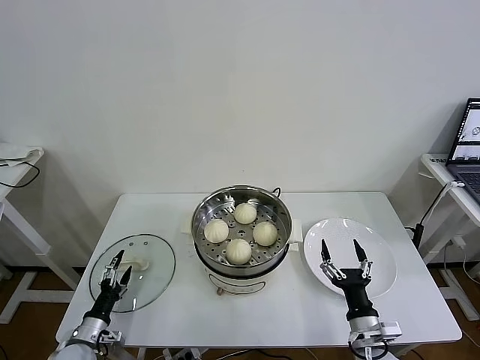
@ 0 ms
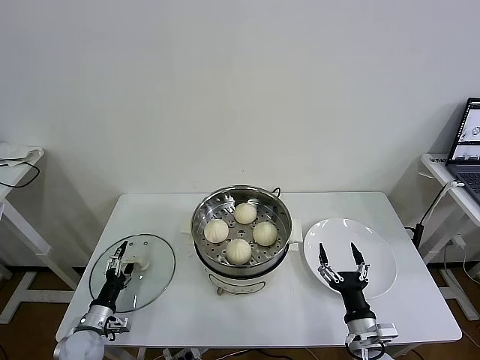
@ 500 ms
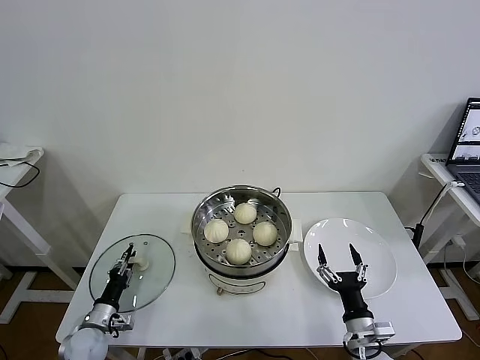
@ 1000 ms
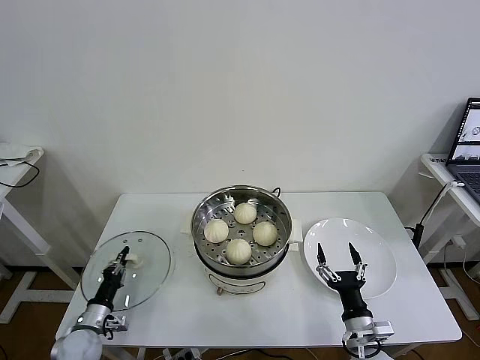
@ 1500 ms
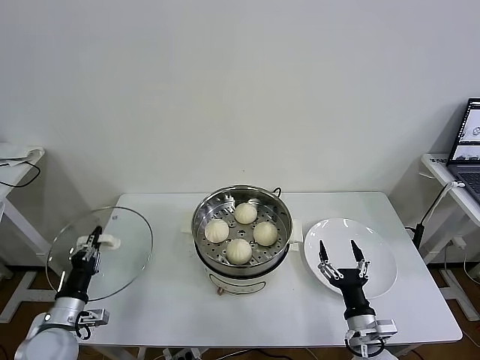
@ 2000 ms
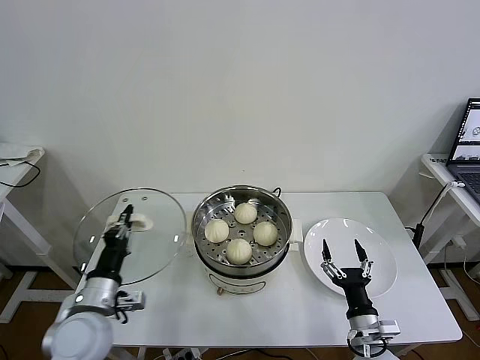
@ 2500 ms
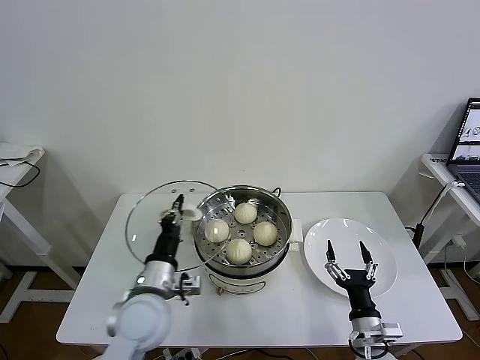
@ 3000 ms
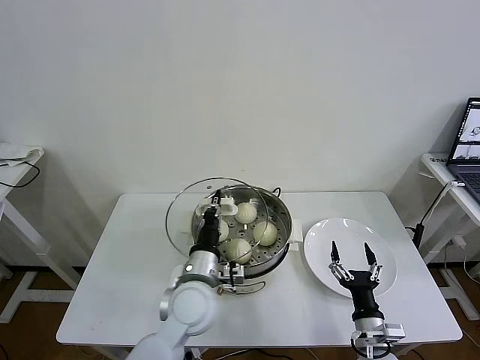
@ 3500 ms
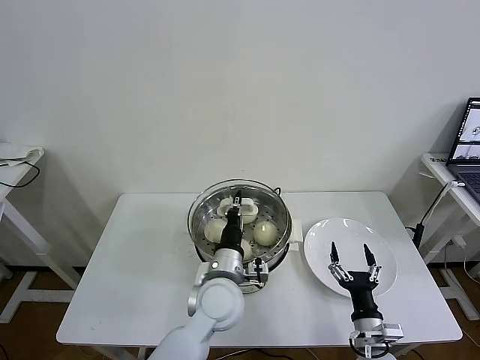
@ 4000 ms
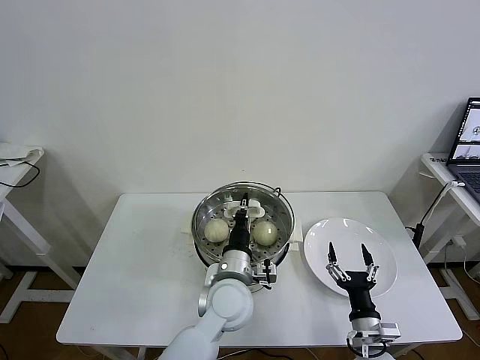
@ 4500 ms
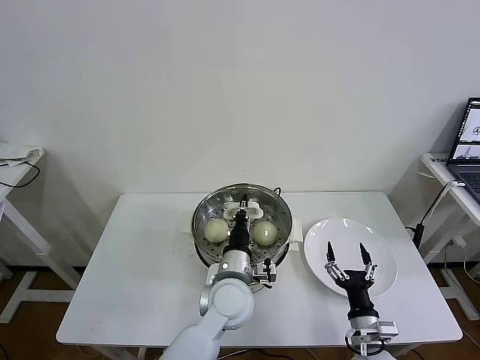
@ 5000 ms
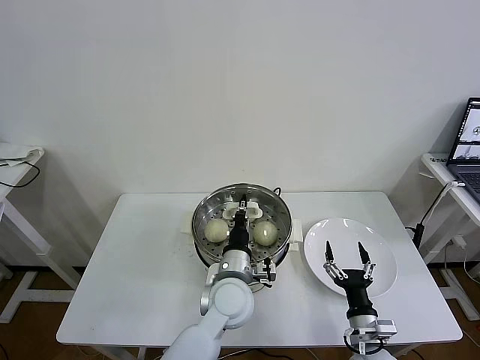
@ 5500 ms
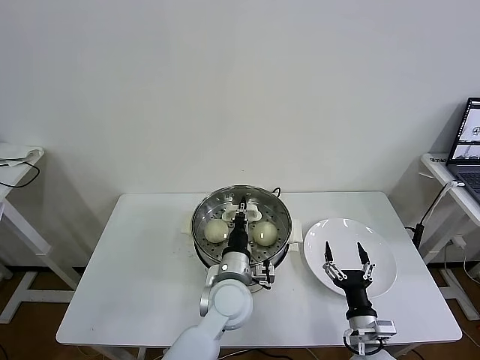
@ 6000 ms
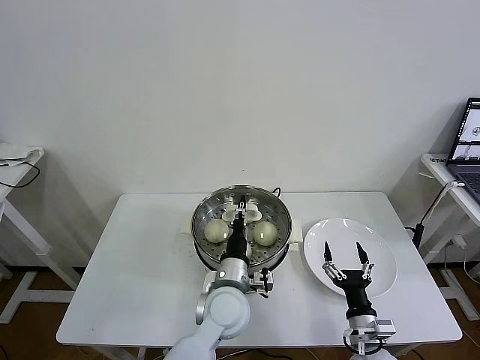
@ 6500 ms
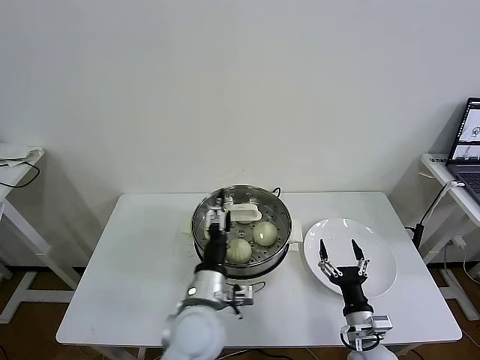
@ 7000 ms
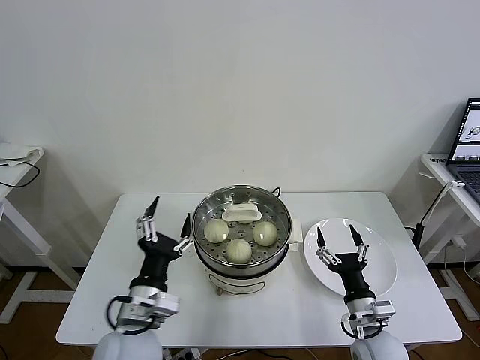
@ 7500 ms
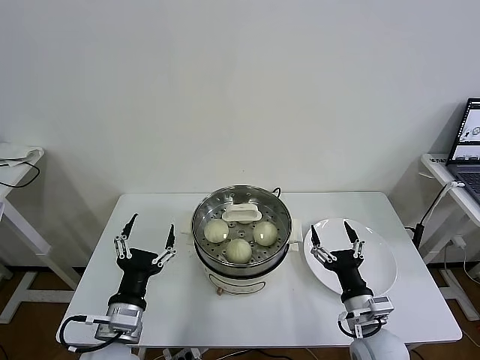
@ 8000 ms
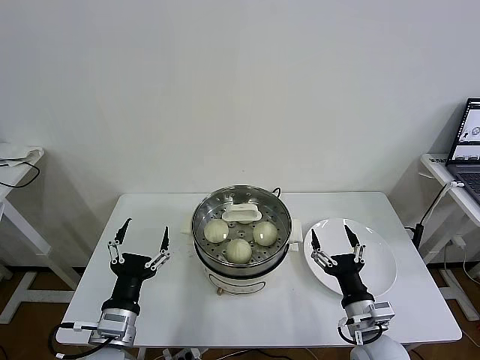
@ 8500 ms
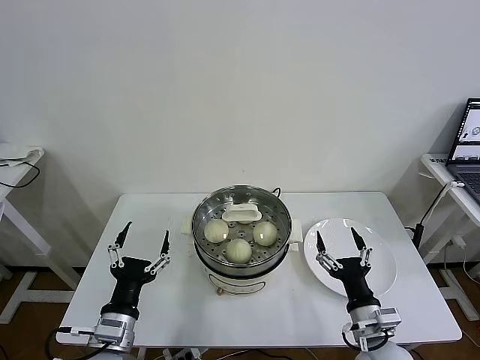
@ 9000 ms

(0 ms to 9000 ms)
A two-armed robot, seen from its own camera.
Task of the whole recording: take steamed baozi put them in steamer then cover it.
Step, 1500 ms - 6500 ms: Place the pot lid on the steamer with left gripper.
0 ms - 2000 ms: The left gripper shifts some 10 cm upward, and closes up.
2000 ms - 4500 ms: The left gripper is displaced to the right by some 35 cm.
4500 ms - 7000 ms: The left gripper shifts approximately 5 cm backward, and opens its fingers.
7000 ms - 9000 ms: The left gripper travels to the left and backward by some 20 cm. The right gripper goes approximately 10 cm upward.

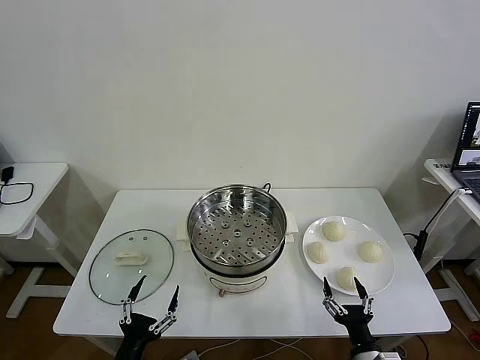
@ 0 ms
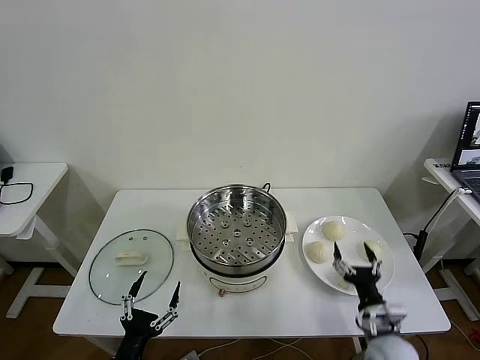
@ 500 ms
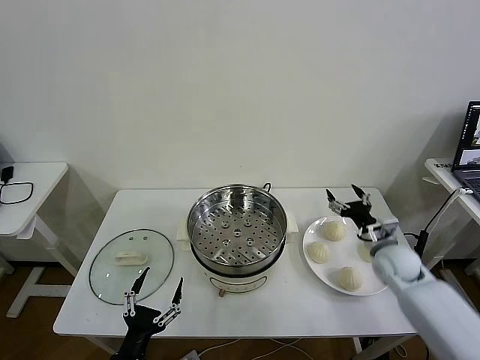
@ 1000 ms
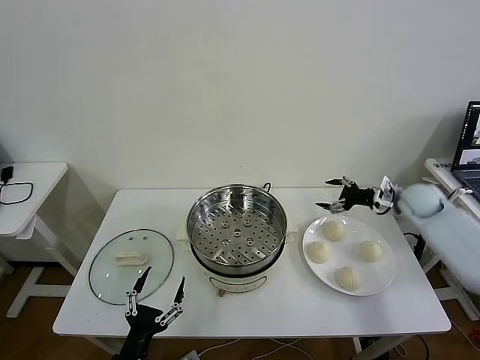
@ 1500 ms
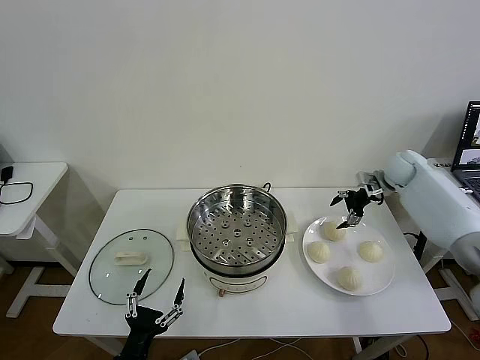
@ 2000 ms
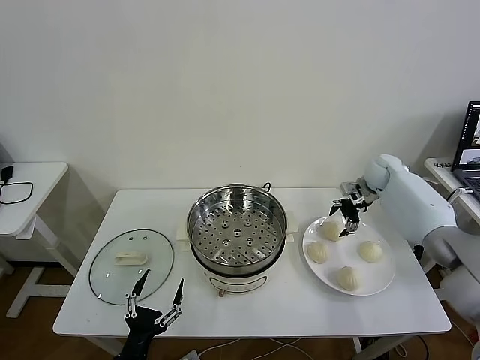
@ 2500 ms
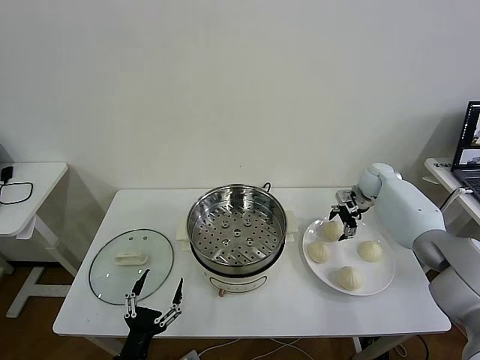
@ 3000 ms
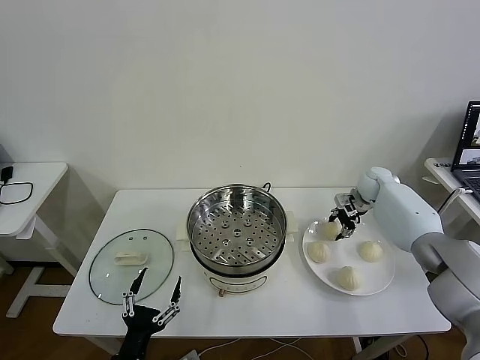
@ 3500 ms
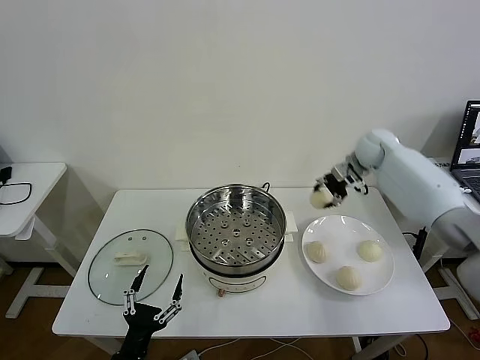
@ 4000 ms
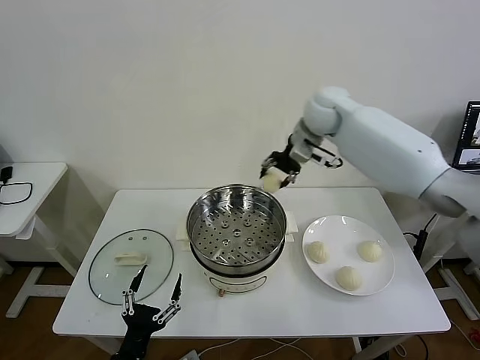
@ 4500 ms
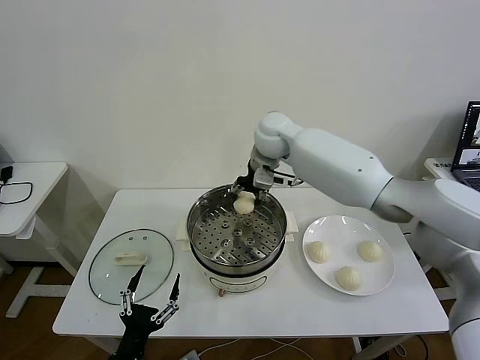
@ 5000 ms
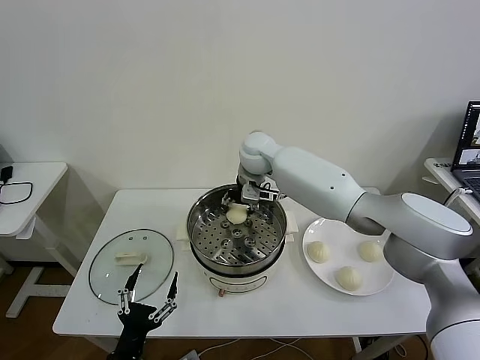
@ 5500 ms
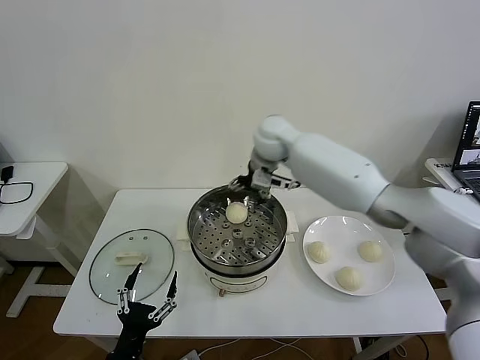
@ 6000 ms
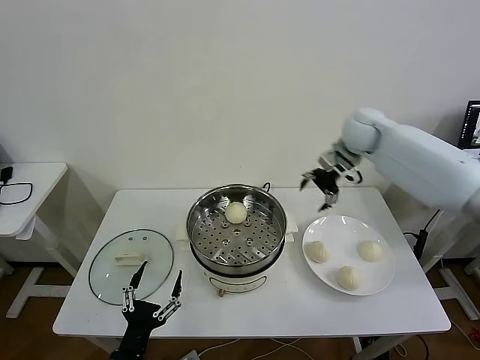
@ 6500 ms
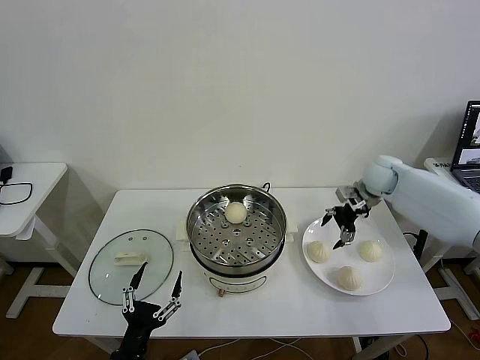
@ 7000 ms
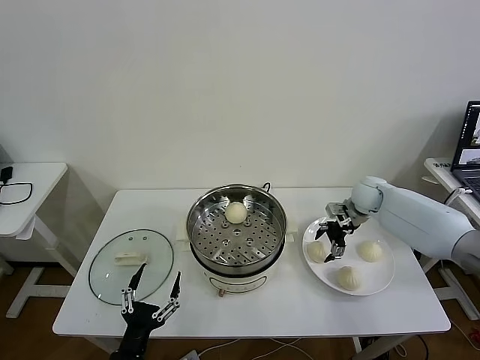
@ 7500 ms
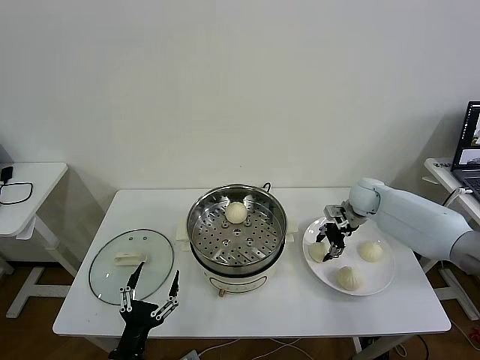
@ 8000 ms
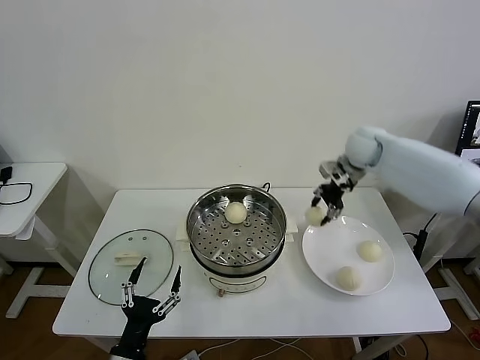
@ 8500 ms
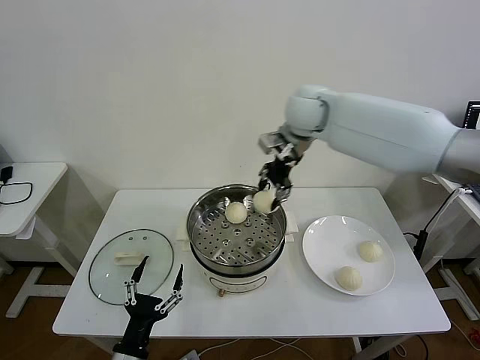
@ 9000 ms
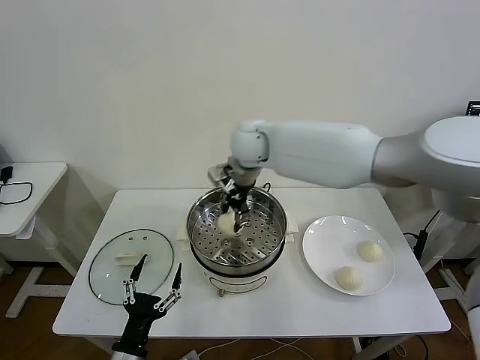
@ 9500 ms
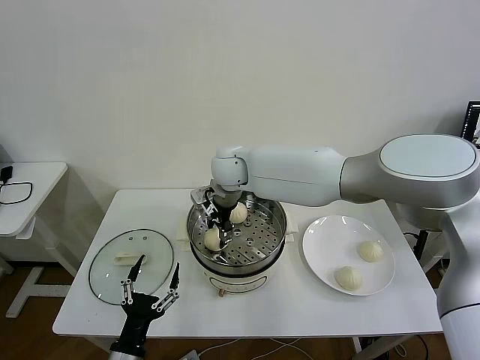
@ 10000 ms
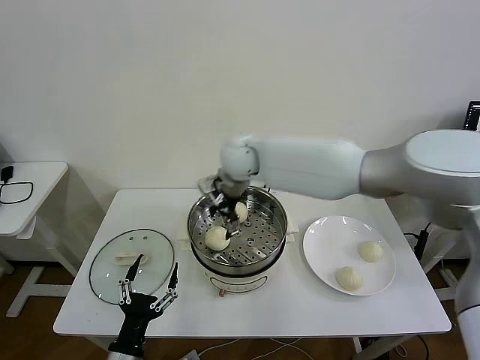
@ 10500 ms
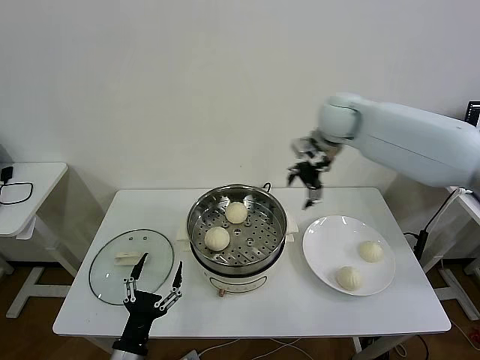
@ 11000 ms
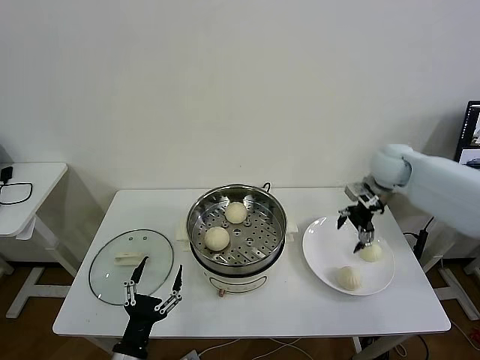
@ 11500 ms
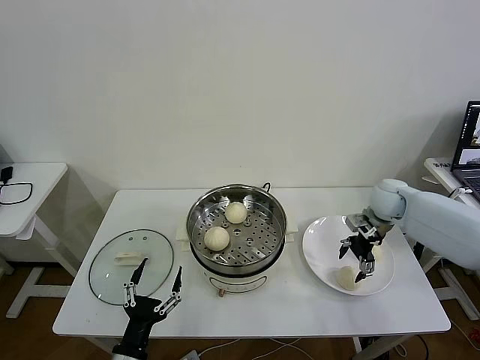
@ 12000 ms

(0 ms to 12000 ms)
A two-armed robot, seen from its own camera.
Task of the whole recording: take steamed baozi put them in steamer then cover it.
Step, 0 ms - 3500 ms: Grasp the baozi in the plate with right gripper.
Step, 4000 ms - 6000 ms: Place the baozi on the steamer with right gripper.
Step, 6500 ms - 8000 ms: Grasp the baozi in the plate with right gripper.
Step, 8500 ms - 10500 ms: Place the baozi on the steamer with right gripper.
2000 ms - 4000 ms: The right gripper heads to the left and upward, covering some 15 cm, and closes its fingers.
4000 ms - 6000 ms: The right gripper shifts roughly 20 cm to the left, and opens.
6000 ms - 8000 ms: The right gripper moves to the right and downward, some 30 cm, and closes up.
8000 ms - 10000 ms: The right gripper travels to the left by approximately 35 cm.
10000 ms - 12000 ms: The right gripper heads to the right, covering about 40 cm, and opens.

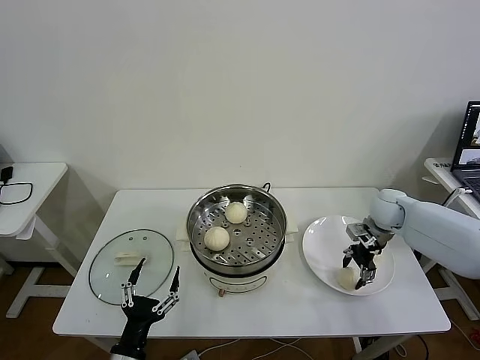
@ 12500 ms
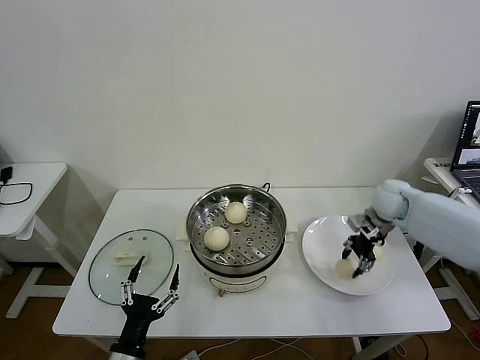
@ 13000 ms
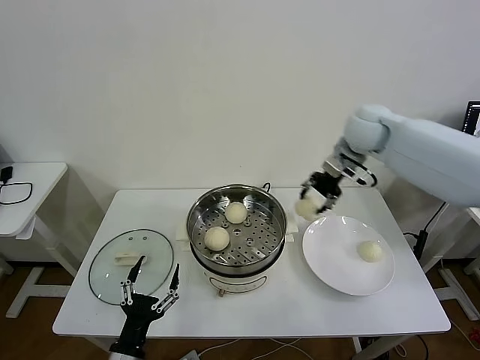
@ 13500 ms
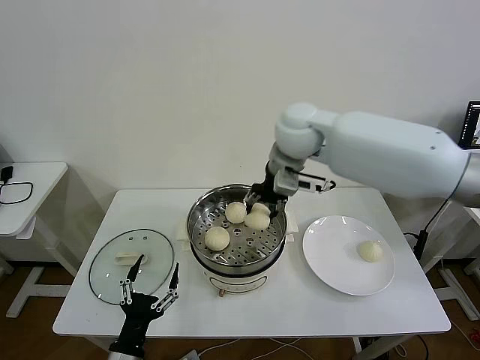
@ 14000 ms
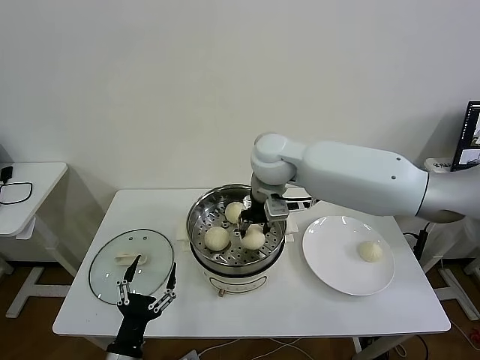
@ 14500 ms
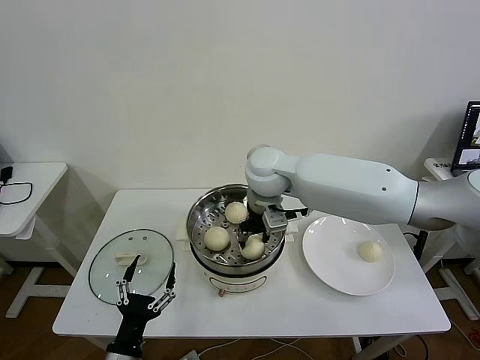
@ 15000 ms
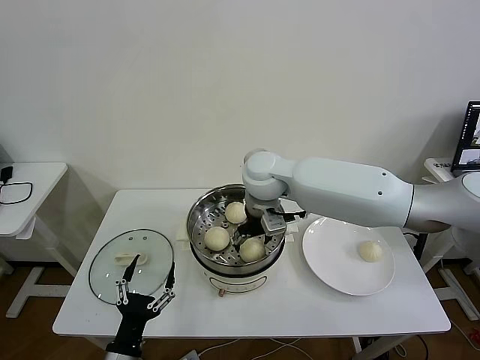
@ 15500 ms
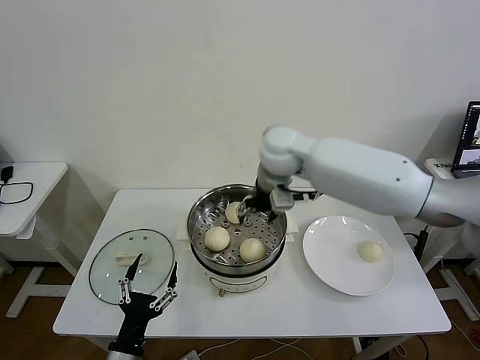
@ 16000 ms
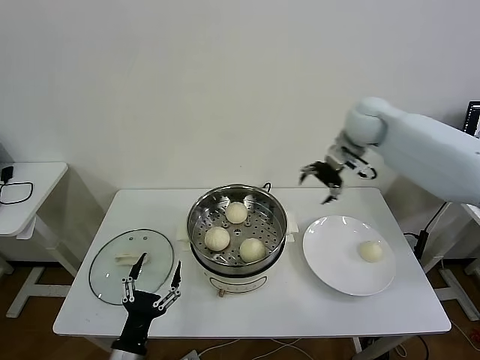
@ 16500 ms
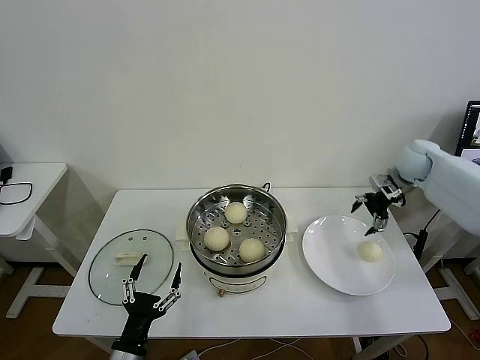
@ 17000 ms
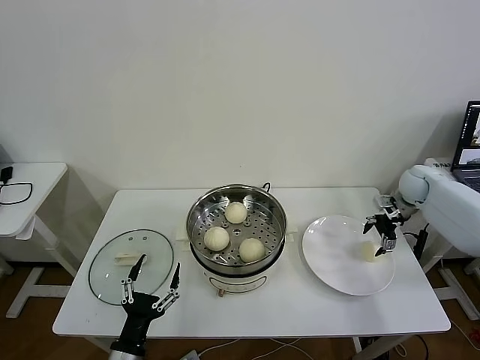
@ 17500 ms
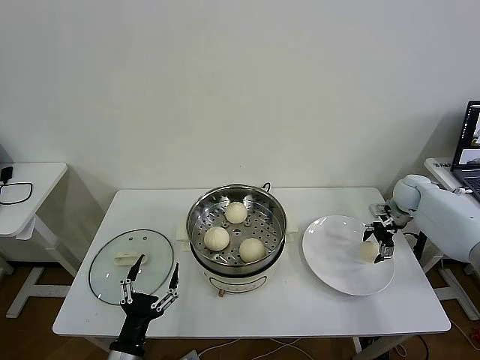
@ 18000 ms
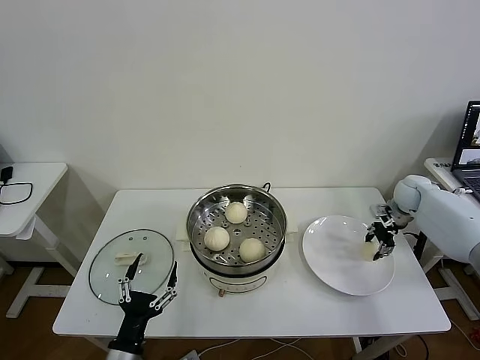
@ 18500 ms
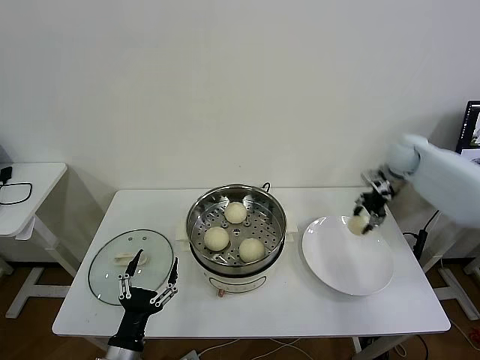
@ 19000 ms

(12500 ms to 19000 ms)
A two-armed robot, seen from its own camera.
Task of the whole recording: take steamed baozi put them in steamer then cover it.
Step, 13000 ms - 15500 ms: Place the baozi on the steamer with right gripper.
Step, 16000 ms - 18000 ms: Grasp the baozi in the plate with right gripper.
12500 ms - 14500 ms: The right gripper heads to the left and upward, covering approximately 35 cm.
14500 ms - 17000 ms: The right gripper goes roughly 35 cm to the right, and opens its fingers.
17000 ms - 19000 ms: The right gripper moves about 10 cm downward and comes back, and closes up.
